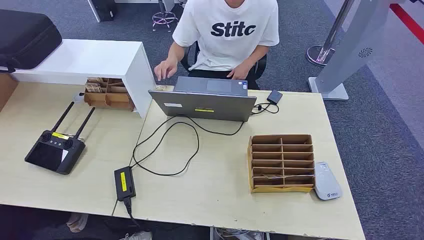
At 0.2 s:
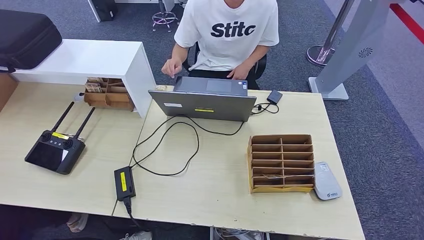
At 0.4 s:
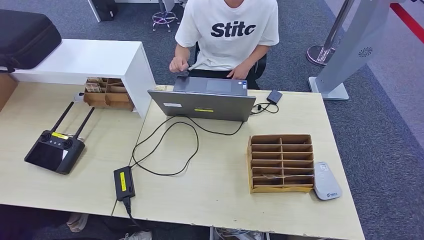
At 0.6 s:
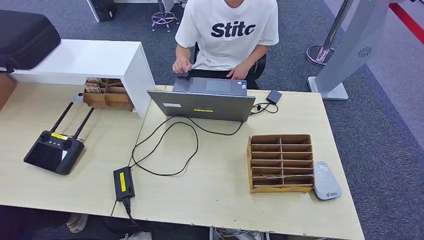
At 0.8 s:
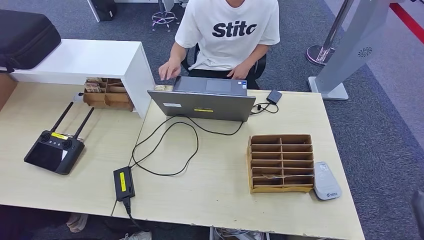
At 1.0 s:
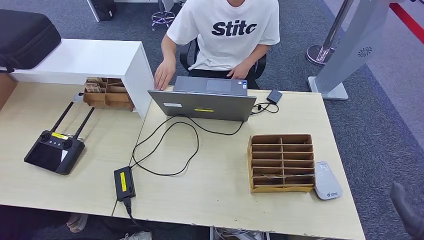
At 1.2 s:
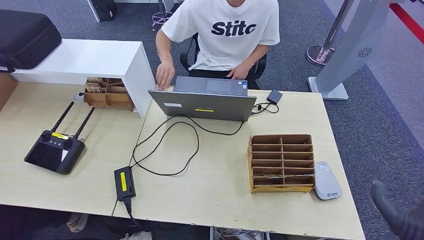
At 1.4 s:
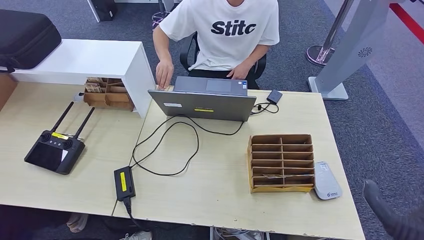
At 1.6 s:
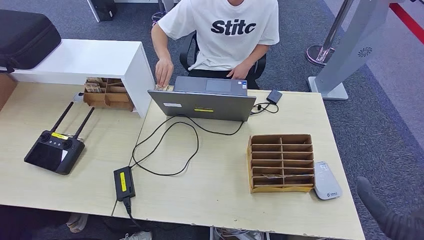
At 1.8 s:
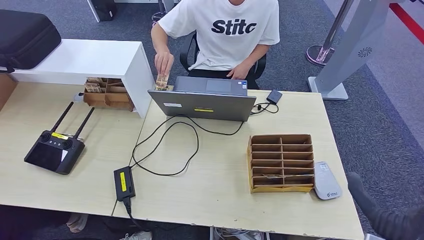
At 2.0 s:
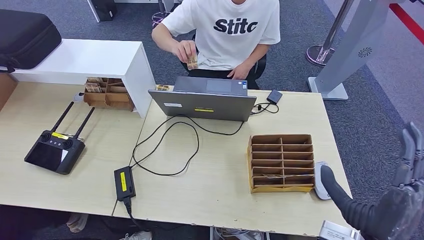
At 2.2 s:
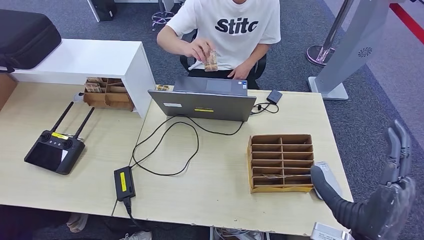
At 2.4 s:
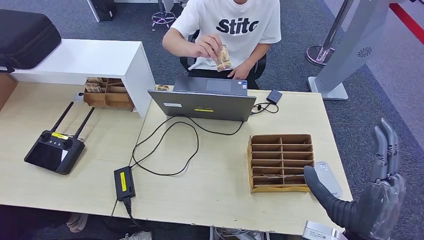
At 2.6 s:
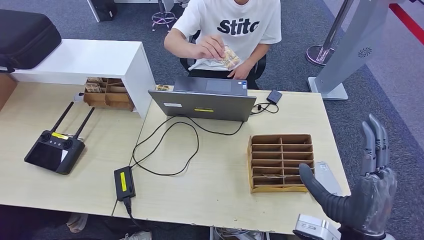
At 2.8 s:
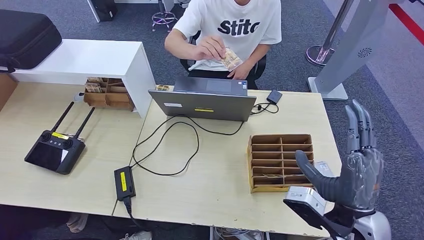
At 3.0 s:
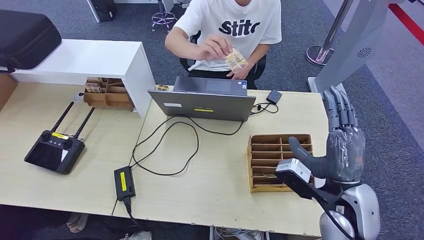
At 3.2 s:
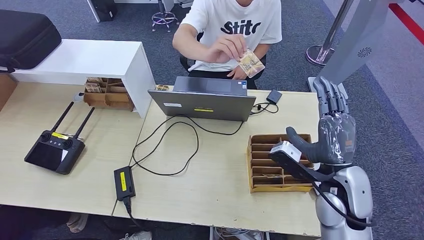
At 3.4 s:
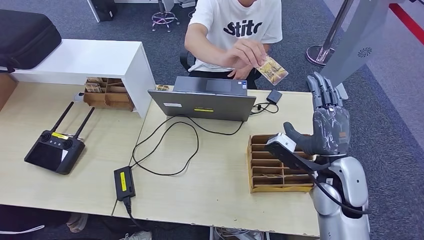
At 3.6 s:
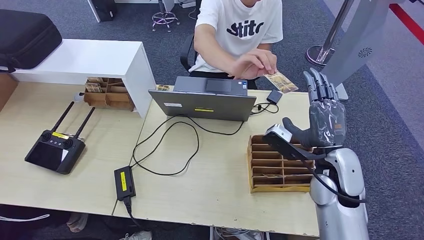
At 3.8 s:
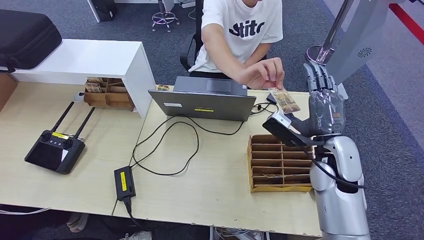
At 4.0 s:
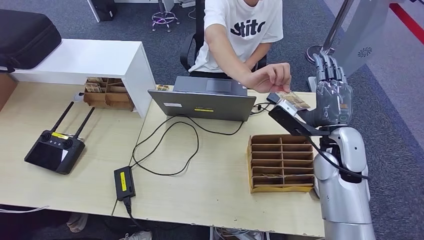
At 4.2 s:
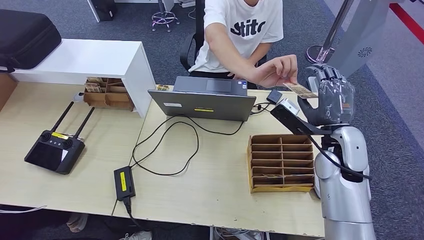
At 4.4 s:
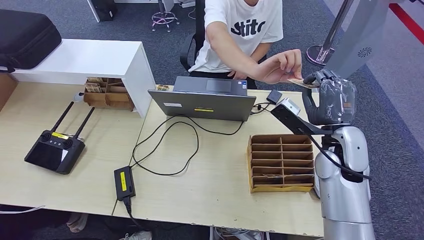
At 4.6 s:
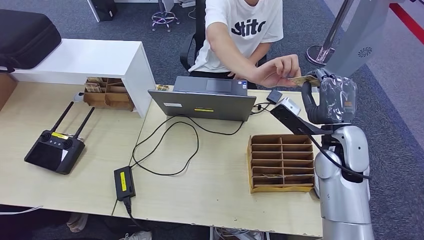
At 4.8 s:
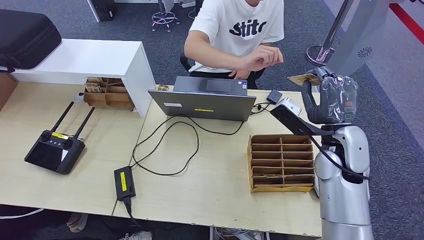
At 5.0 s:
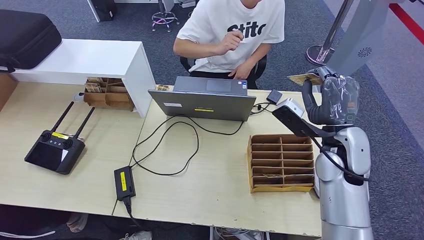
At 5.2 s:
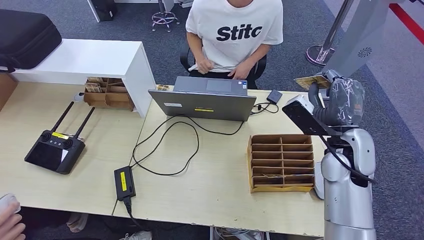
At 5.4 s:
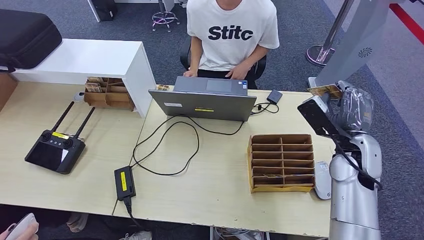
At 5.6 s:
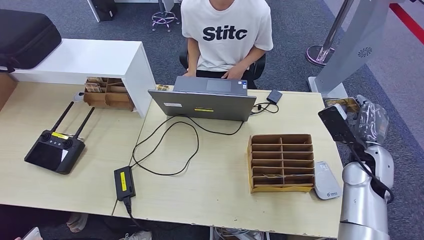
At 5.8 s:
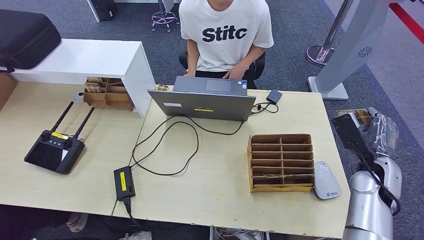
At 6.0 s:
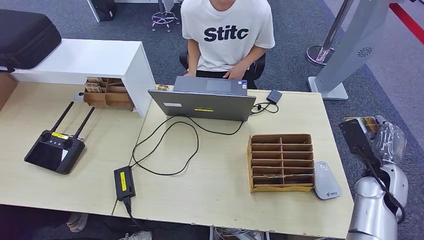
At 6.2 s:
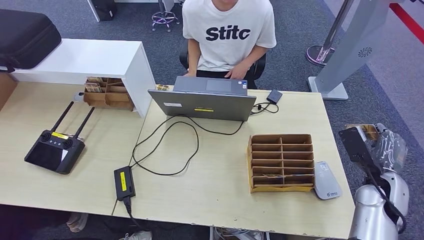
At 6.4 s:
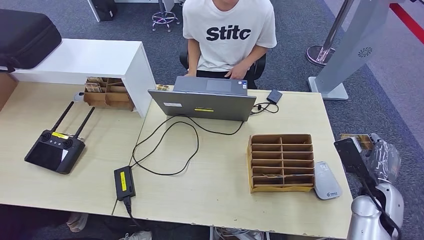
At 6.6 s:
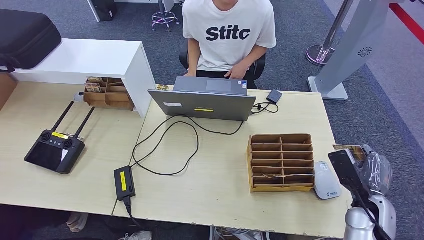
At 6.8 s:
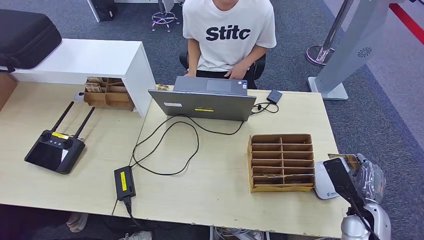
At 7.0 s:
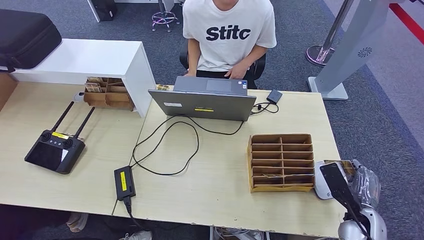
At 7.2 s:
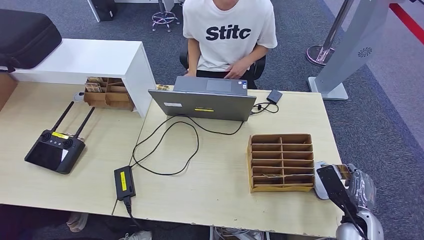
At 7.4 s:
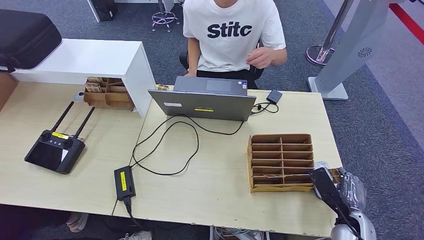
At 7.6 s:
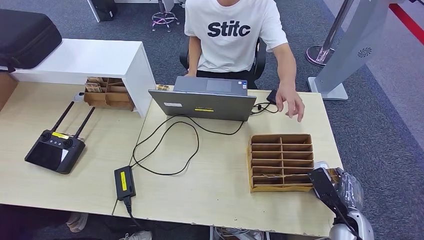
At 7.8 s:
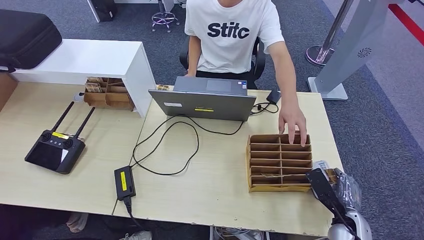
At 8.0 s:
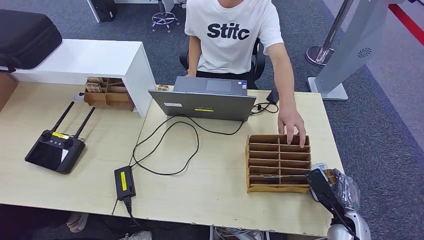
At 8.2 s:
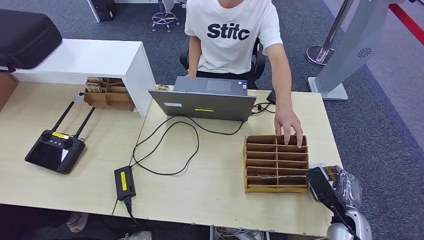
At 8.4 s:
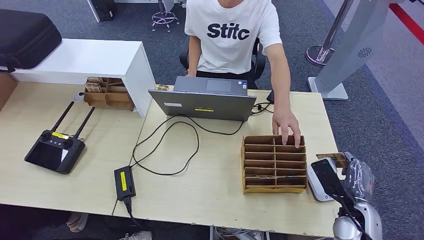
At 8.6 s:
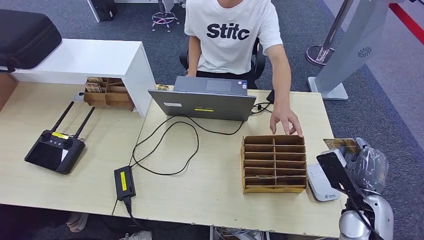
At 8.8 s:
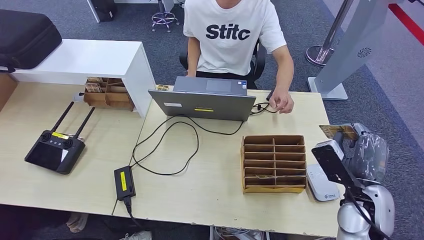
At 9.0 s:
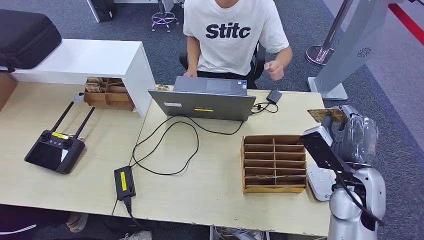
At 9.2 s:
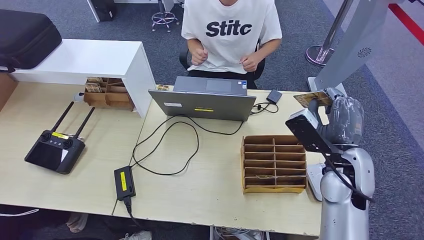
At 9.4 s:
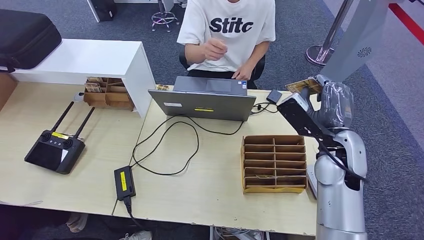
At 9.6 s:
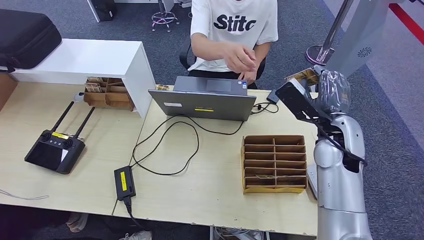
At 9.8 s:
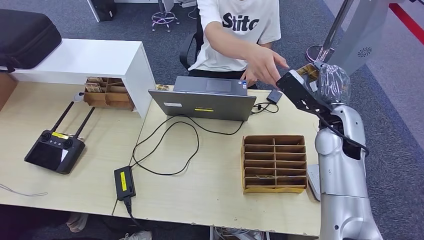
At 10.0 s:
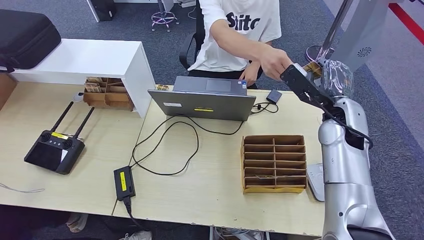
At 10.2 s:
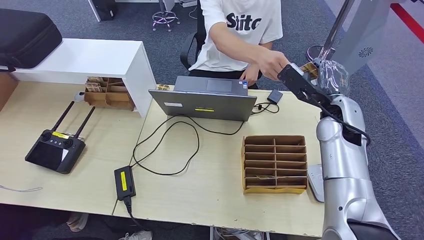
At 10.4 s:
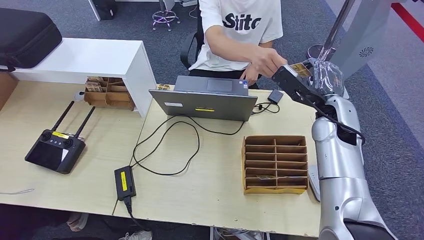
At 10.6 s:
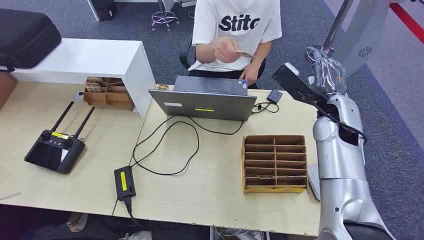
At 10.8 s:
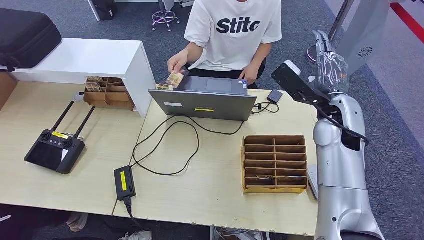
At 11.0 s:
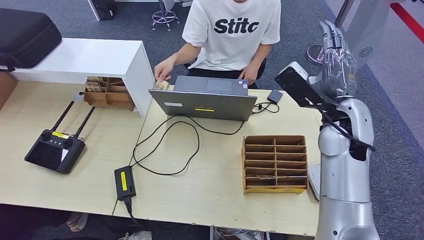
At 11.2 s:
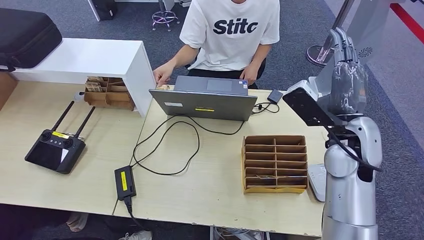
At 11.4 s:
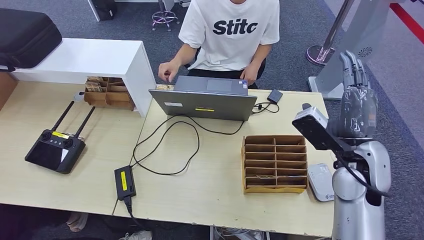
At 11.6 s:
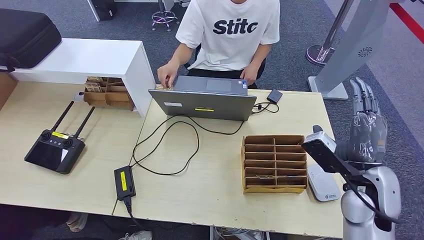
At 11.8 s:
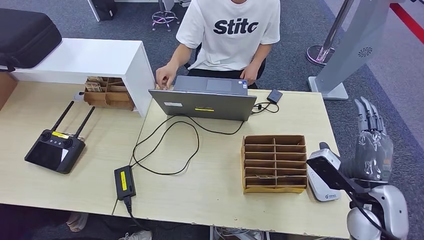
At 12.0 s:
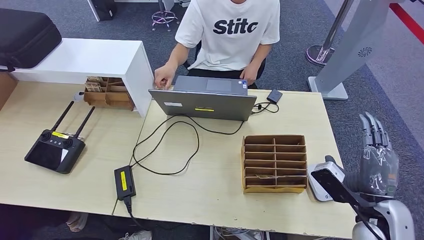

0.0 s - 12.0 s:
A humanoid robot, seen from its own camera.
Step, 0.0 s - 5.8 s: Take the ID card from the person's hand.
Step, 6.0 s - 8.8 s: Place the ID card on the card reader.
1.6 s - 3.0 s: The right hand travels forward and to the left by some 10 cm.
3.0 s - 4.4 s: The right hand travels forward by approximately 10 cm.
4.4 s - 6.0 s: The right hand shifts some 15 cm to the right and downward.
6.0 s - 7.6 s: The right hand travels downward, backward and to the left by some 15 cm.
7.6 s - 9.0 s: The right hand shifts approximately 15 cm upward.
9.0 s - 10.4 s: The right hand travels forward and upward by some 15 cm.
10.4 s - 12.0 s: The right hand shifts about 25 cm backward, downward and to the right.

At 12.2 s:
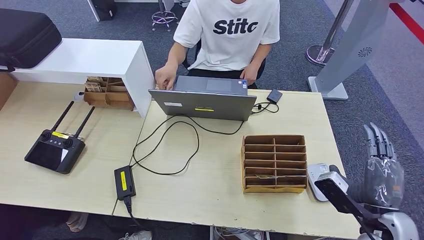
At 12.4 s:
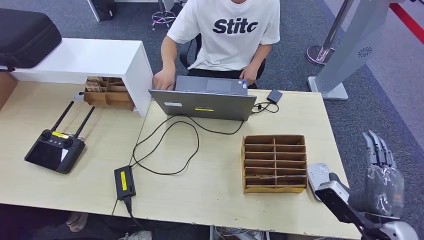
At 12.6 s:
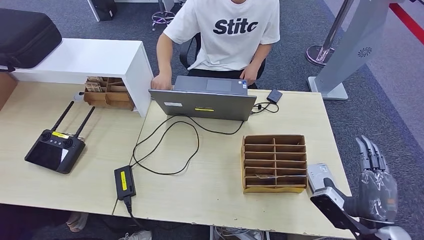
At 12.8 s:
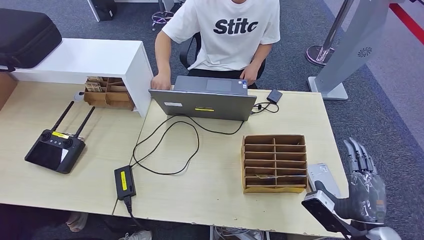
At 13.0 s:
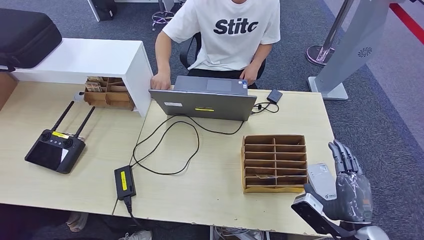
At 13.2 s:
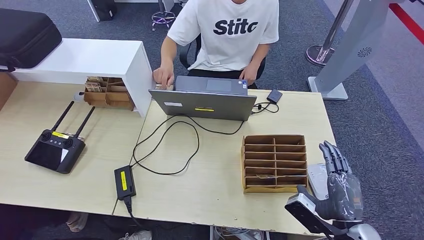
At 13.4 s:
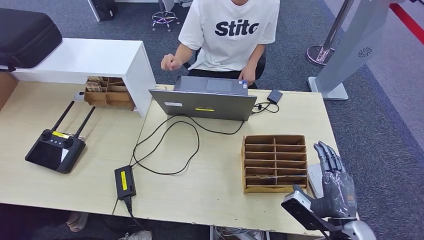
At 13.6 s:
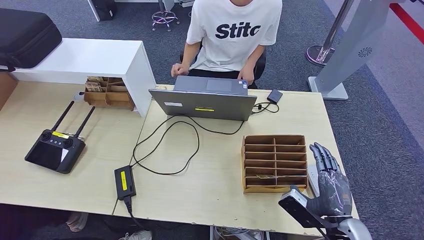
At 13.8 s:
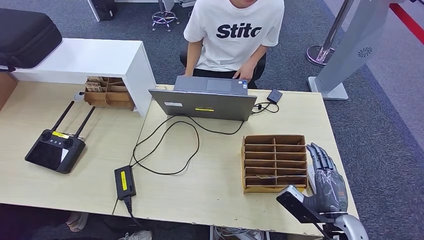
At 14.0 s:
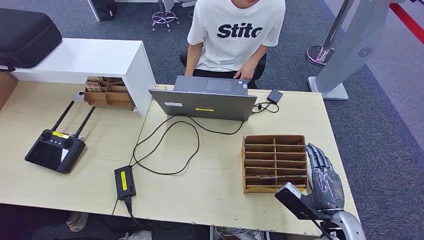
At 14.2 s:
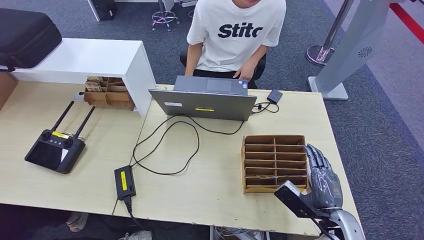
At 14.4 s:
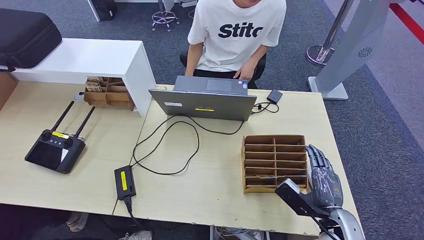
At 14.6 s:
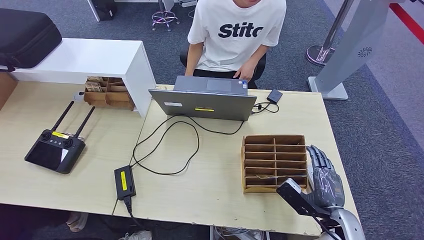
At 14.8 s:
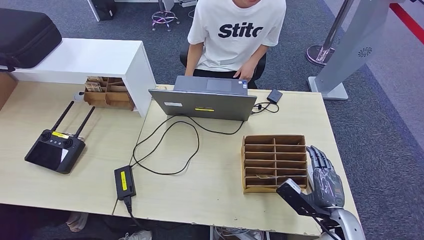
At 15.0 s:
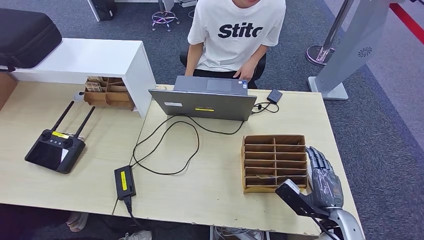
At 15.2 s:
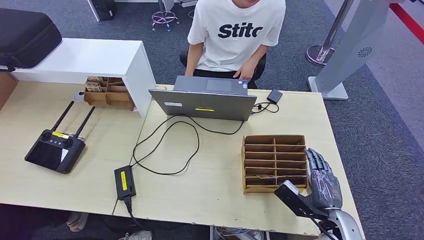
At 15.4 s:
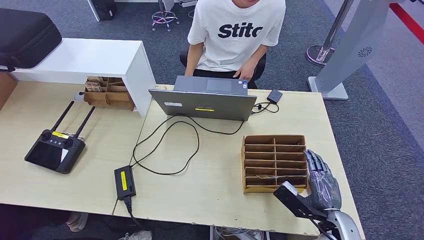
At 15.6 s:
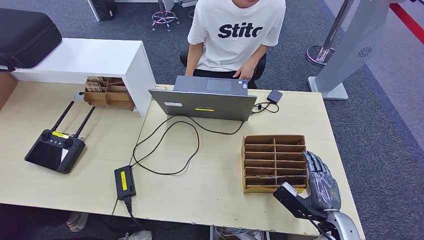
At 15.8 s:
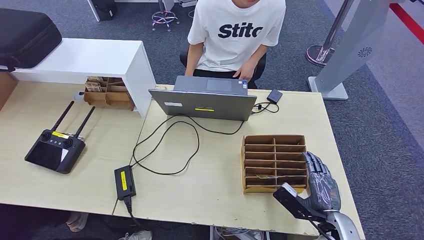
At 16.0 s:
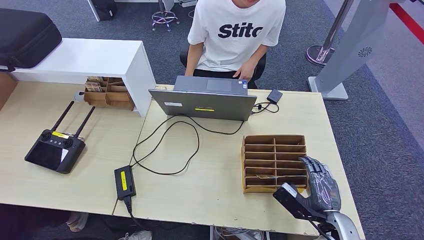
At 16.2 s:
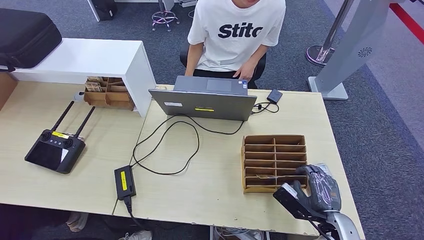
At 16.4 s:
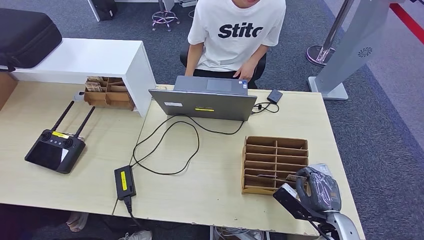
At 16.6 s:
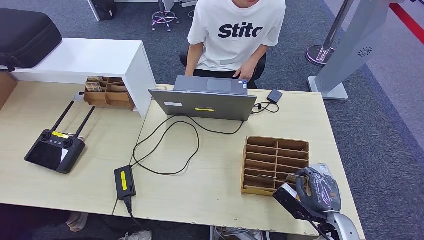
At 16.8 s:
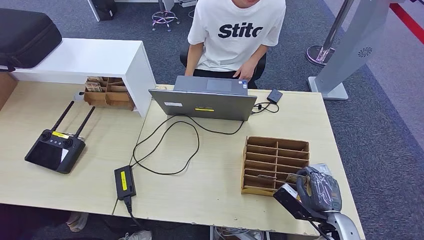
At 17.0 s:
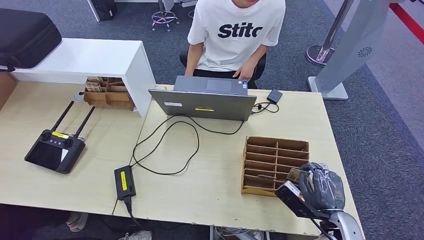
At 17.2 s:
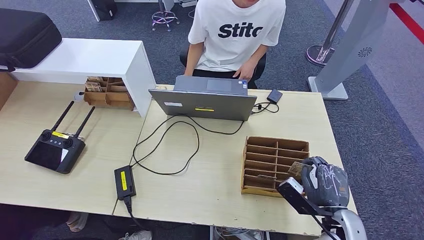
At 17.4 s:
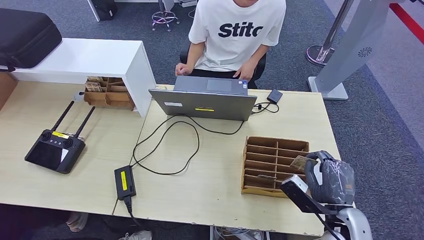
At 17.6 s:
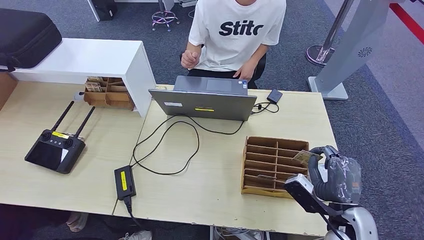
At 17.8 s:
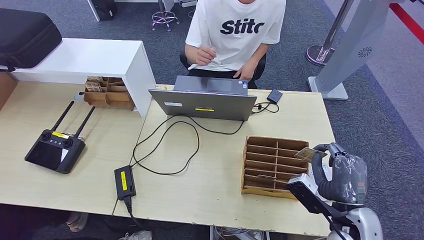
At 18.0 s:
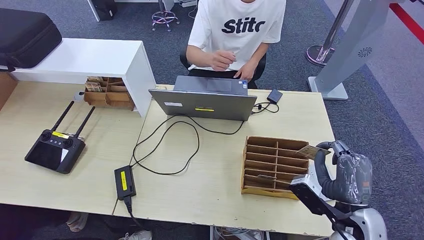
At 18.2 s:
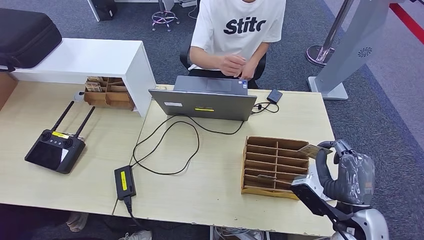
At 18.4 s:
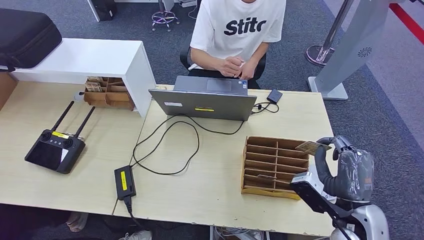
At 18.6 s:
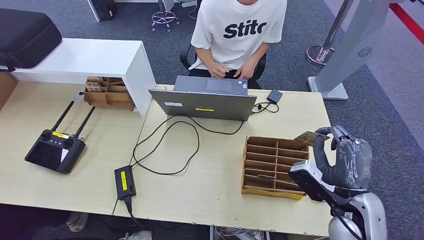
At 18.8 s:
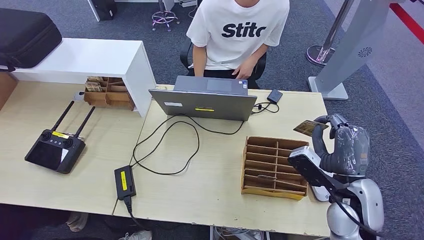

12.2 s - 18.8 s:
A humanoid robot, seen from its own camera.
Step, 12.6 s - 17.8 s: Pick up the room key from the key card box.
12.2 s - 13.8 s: The right hand moves downward and to the left, about 10 cm.
13.8 s - 17.2 s: The hands move only a little.
17.2 s - 18.8 s: The right hand moves upward, roughly 10 cm.
